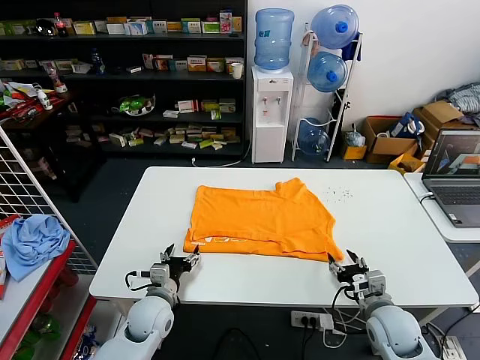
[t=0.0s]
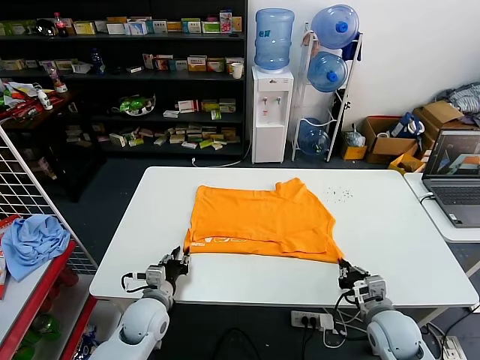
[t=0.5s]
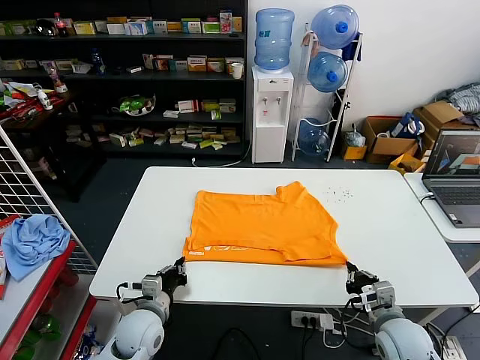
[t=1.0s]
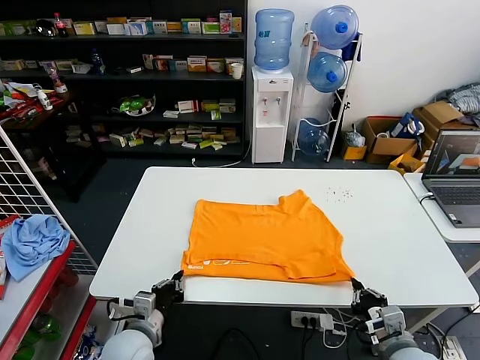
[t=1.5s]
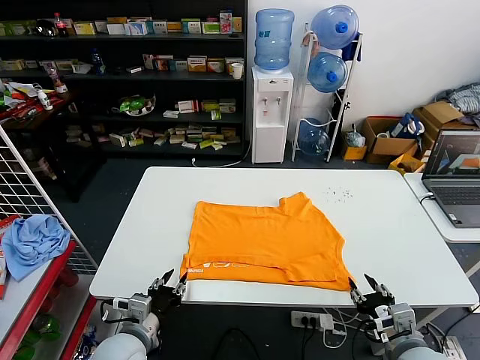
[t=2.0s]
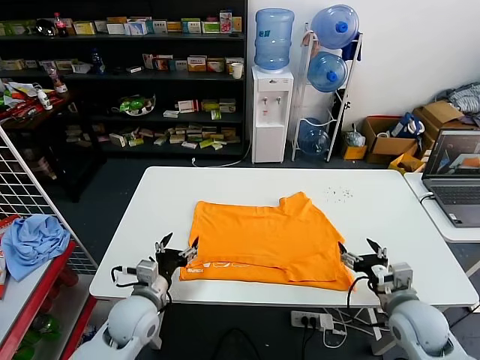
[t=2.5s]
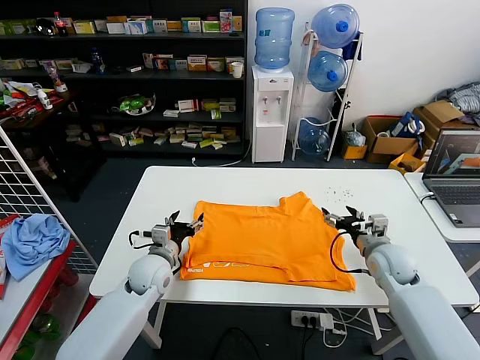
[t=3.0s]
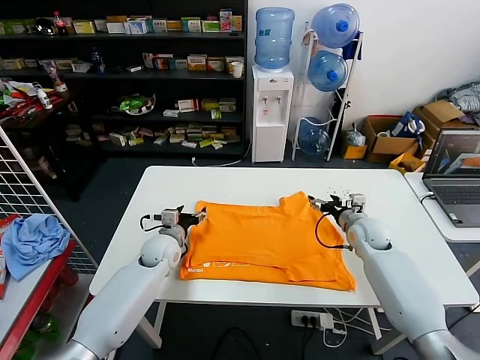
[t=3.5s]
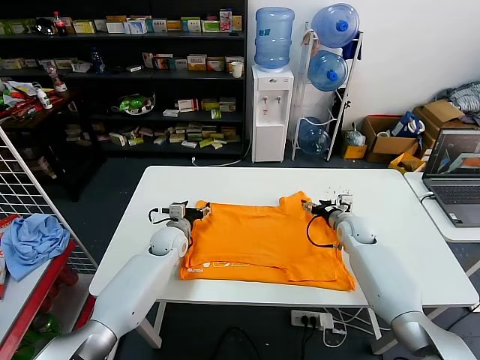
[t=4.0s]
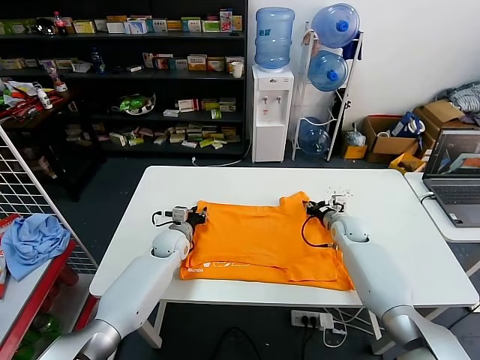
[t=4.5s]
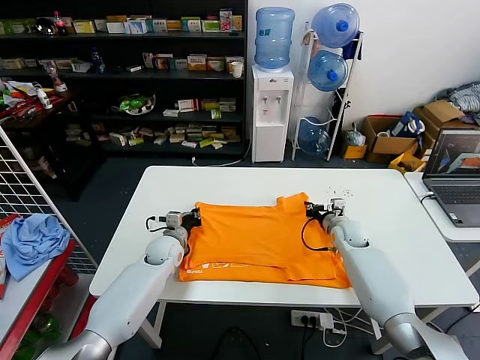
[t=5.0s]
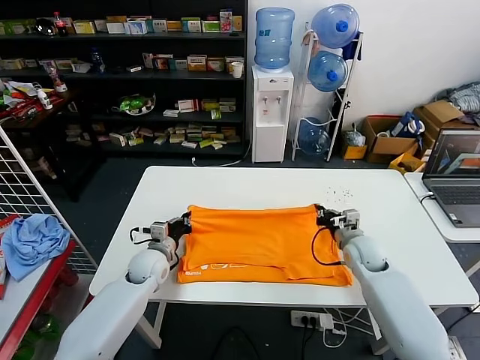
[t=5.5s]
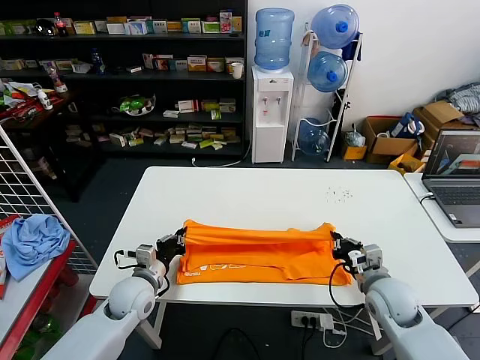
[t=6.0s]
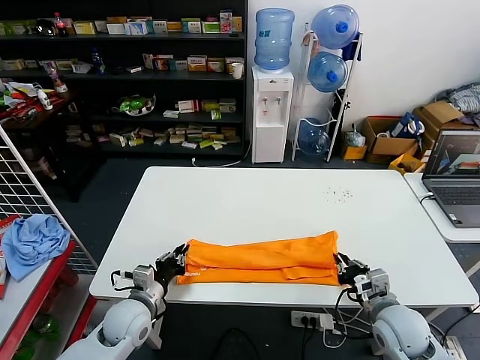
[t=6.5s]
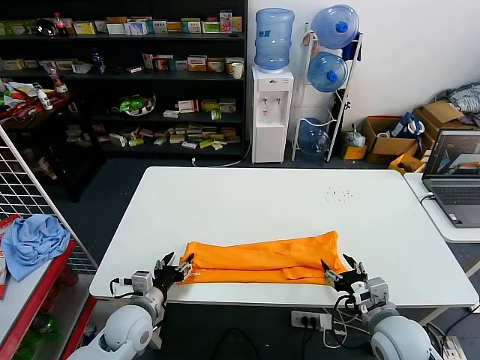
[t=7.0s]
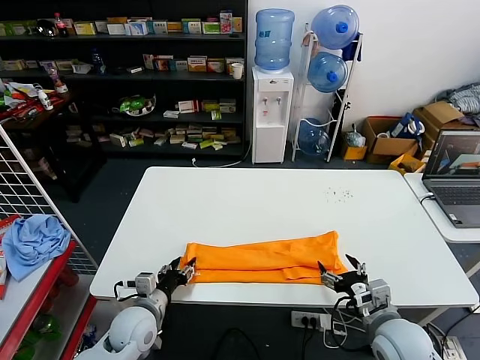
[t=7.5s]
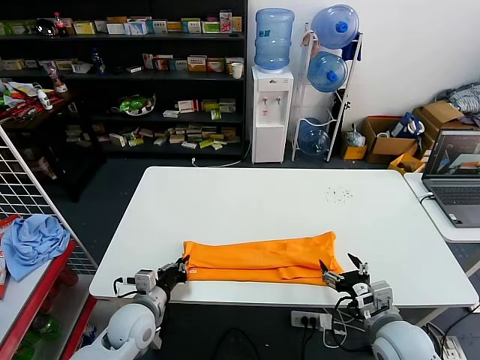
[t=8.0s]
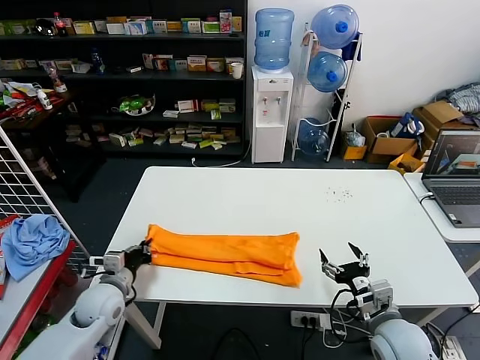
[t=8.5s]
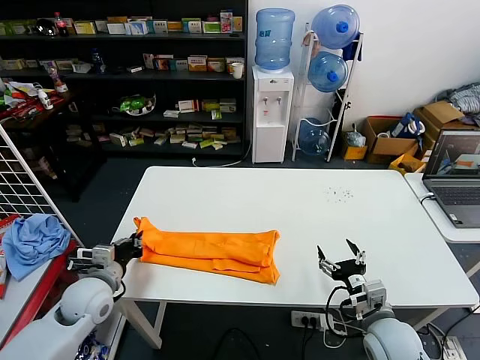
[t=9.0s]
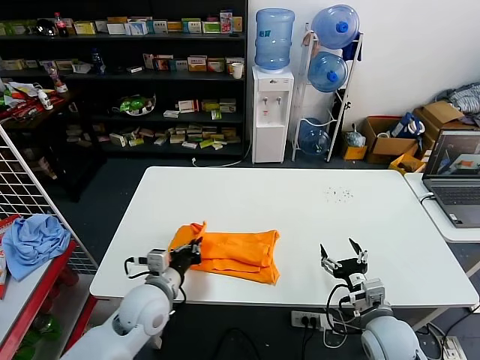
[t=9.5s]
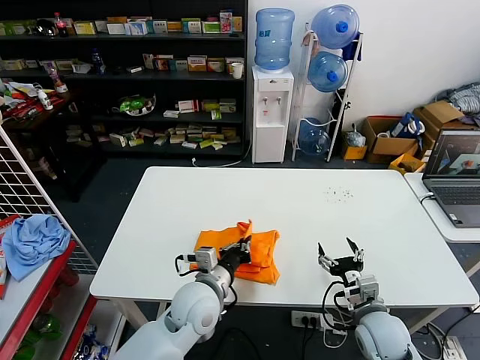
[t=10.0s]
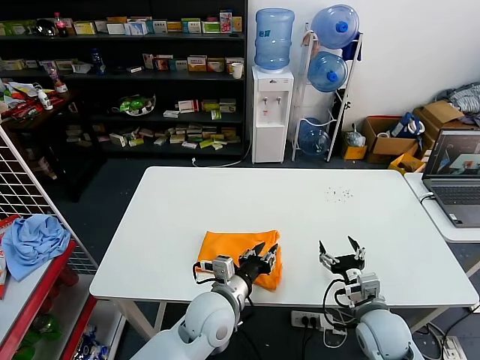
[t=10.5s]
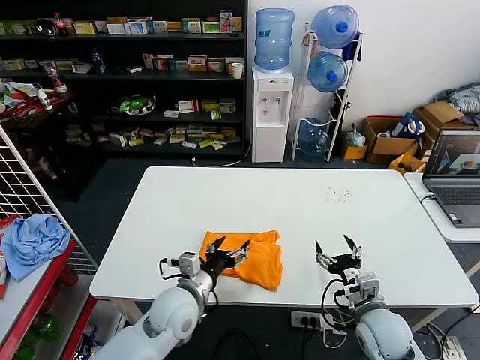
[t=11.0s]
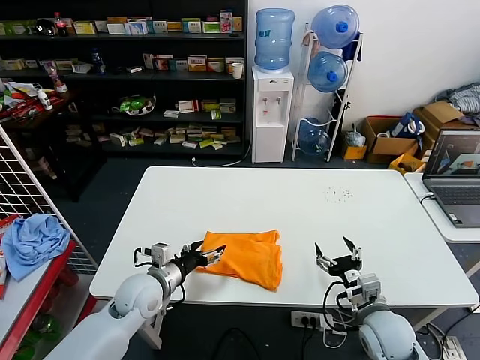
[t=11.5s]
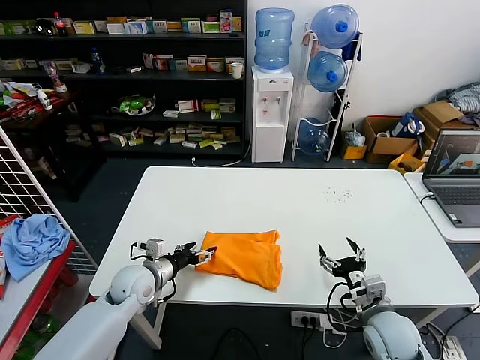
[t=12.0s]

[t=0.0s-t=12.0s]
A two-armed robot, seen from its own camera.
Task of the whole recording: fold and organize the clothes.
Step, t=0.0s to t=1.5s: Drag the clothes downward with both gripper.
Step, t=2.0s to t=4.5s: use both grippers simultaneously to clamp the upper edge of the clothing fabric.
Step, t=5.5s to t=6.5s: use both grippers to drag the upper edge of the fabric backward and fold it over the lower edge.
Step, t=7.0s to t=8.0s: use the left gripper to clamp the left edge of the fabric.
Step, t=8.5s to t=10.5s: use the left gripper to drag the left edge of the fabric to the left and folds it over the right edge.
t=0.0s to t=2.0s: The two grippers go approximately 10 cm backward and upward. The right gripper closes and opens again, while the left gripper closes up.
t=2.0s to t=4.0s: Both grippers travel together forward, about 30 cm. The left gripper opens up.
t=4.0s to t=6.0s: The two grippers go roughly 20 cm backward. The right gripper closes its fingers; the left gripper closes its fingers.
t=6.0s to t=8.0s: Both grippers move backward, about 5 cm. The right gripper opens up. The left gripper opens and closes again.
t=8.0s to t=10.0s: The right gripper moves roughly 5 cm. Meanwhile the left gripper is displaced to the right and upward by some 15 cm.
t=10.0s to t=12.0s: The left gripper is displaced to the left and forward by roughly 15 cm, and opens up.

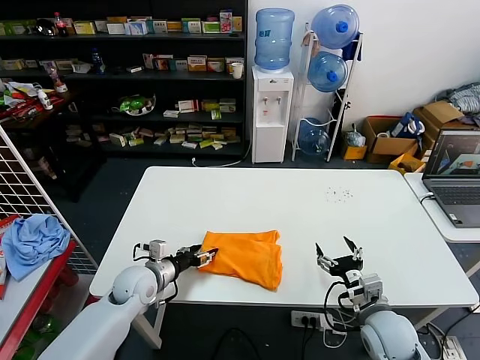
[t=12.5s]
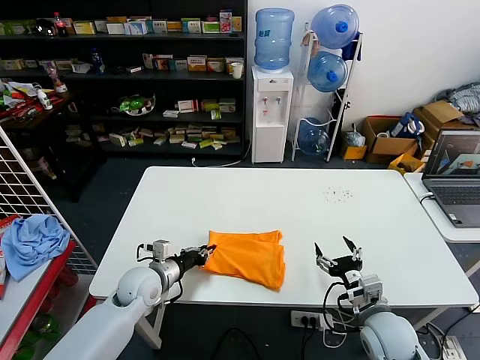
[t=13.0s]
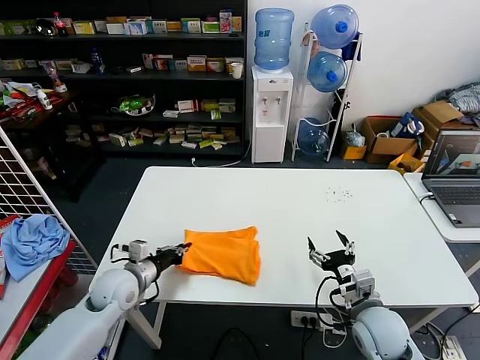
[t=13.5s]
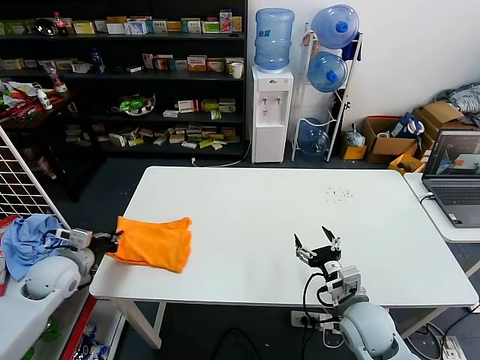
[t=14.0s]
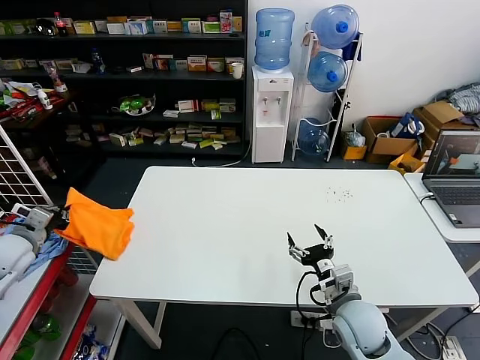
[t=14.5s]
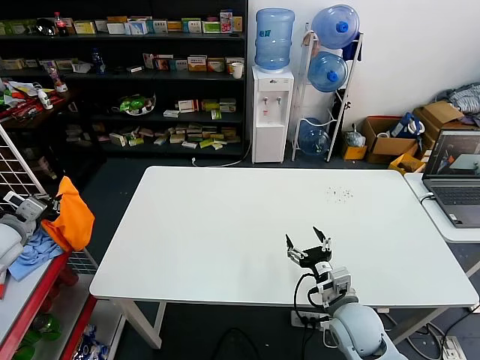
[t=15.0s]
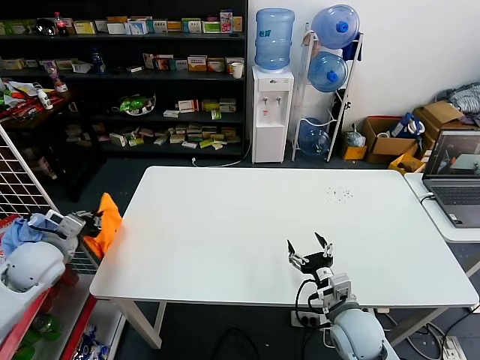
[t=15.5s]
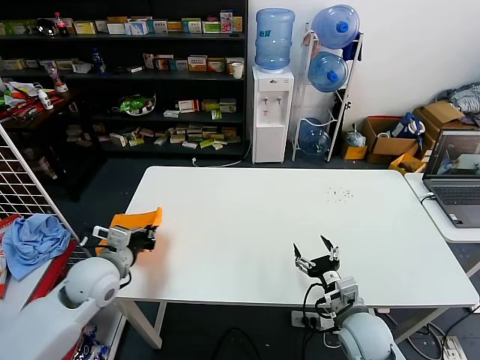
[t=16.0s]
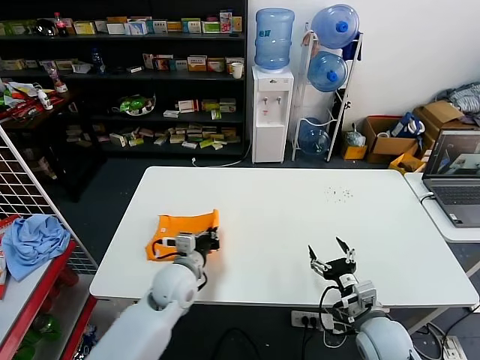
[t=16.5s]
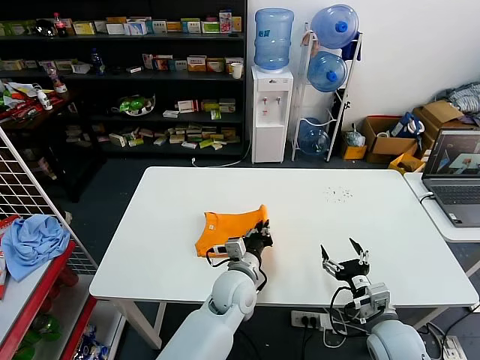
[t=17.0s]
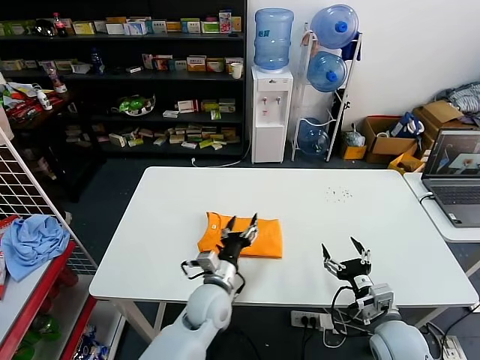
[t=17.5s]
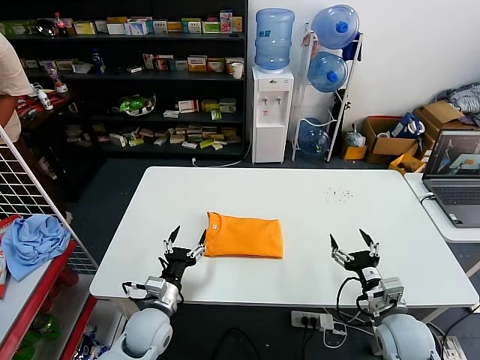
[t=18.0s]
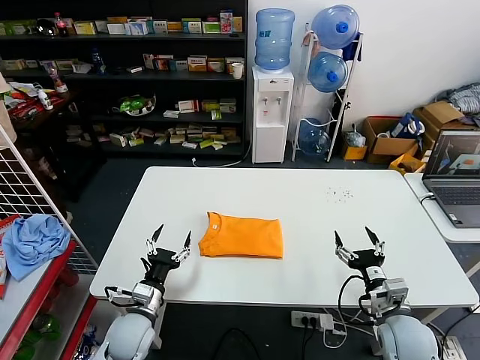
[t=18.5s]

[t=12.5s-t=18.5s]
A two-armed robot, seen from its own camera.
Task of the whole recording: fold and organize the clothes.
Step, t=12.5s to t=17.0s: Flip the folded clothes over with left gripper.
t=12.5s to t=14.5s: The left gripper heads to the left and upward, covering about 25 cm, and closes its fingers. Meanwhile the right gripper heads to the left, covering approximately 5 cm.
t=14.5s to t=16.5s: The left gripper moves to the right, roughly 30 cm; the right gripper shifts by some 5 cm.
t=16.5s to t=18.5s: The left gripper travels downward and backward by about 10 cm, reaches roughly 15 cm to the right, then returns, and opens up.
